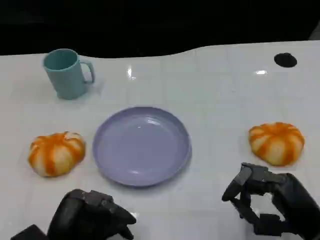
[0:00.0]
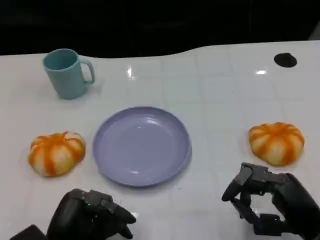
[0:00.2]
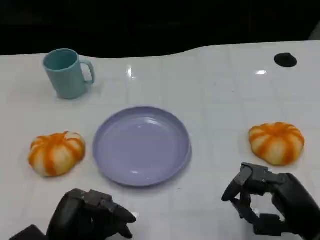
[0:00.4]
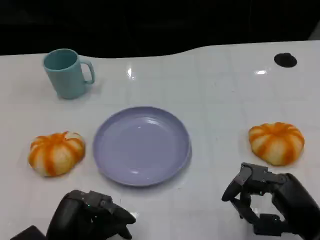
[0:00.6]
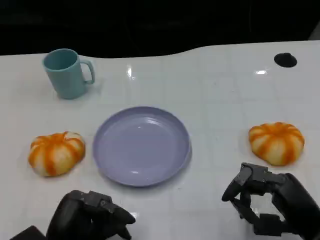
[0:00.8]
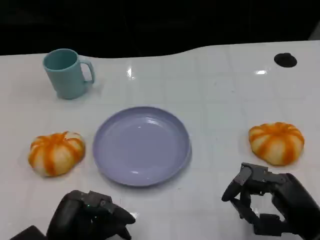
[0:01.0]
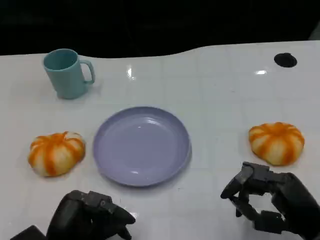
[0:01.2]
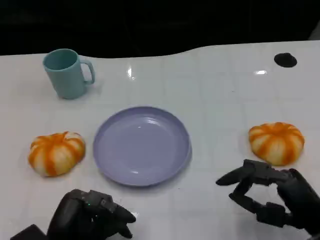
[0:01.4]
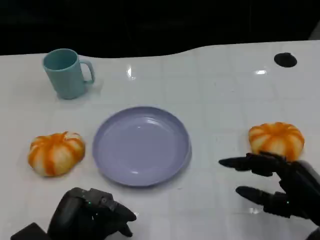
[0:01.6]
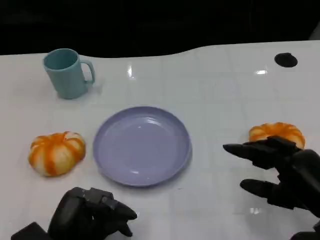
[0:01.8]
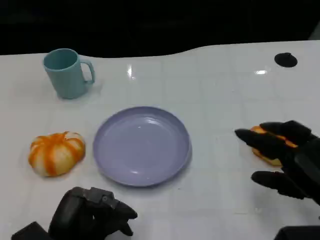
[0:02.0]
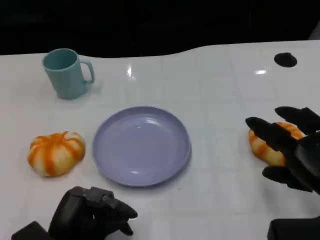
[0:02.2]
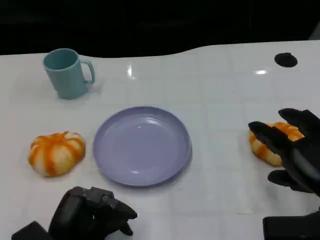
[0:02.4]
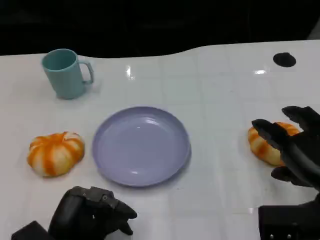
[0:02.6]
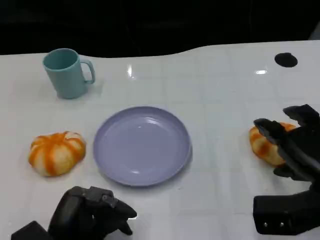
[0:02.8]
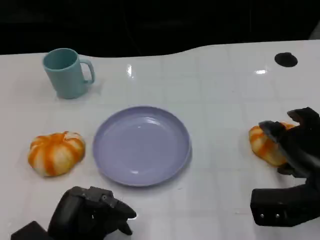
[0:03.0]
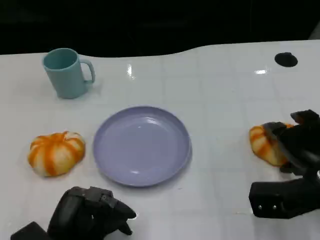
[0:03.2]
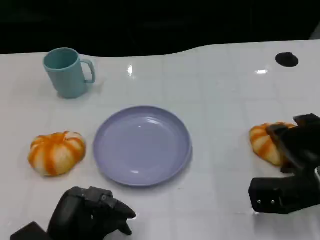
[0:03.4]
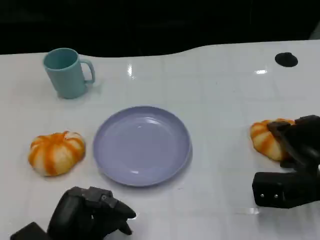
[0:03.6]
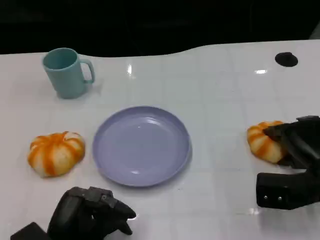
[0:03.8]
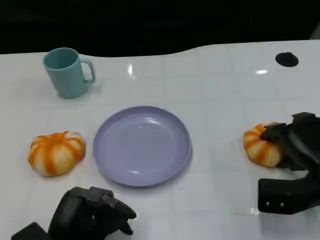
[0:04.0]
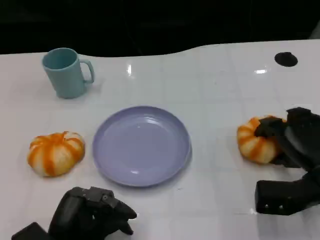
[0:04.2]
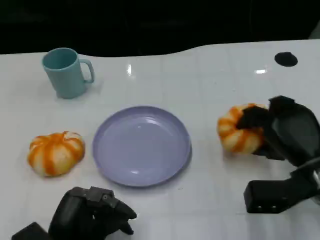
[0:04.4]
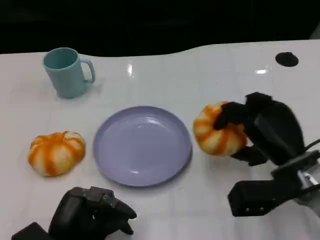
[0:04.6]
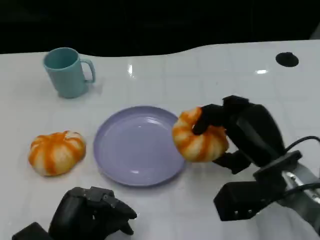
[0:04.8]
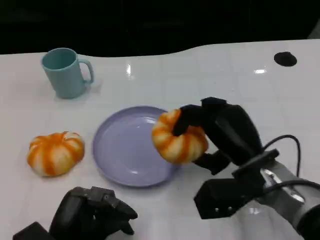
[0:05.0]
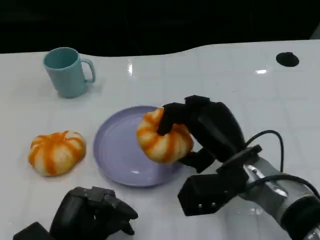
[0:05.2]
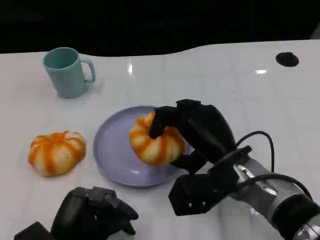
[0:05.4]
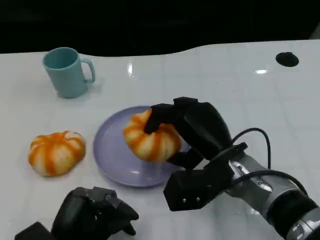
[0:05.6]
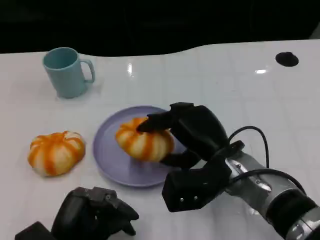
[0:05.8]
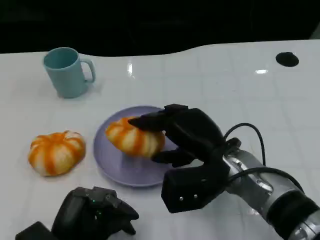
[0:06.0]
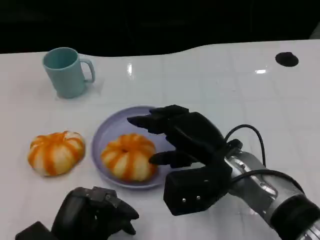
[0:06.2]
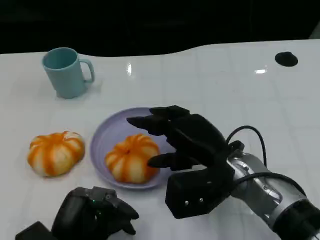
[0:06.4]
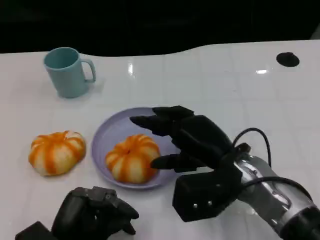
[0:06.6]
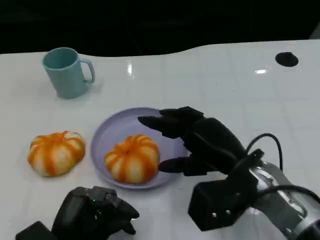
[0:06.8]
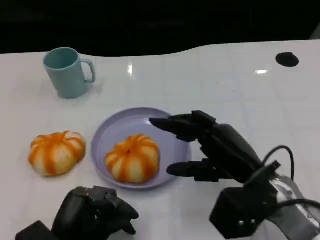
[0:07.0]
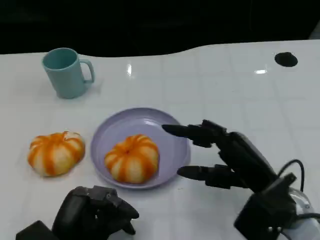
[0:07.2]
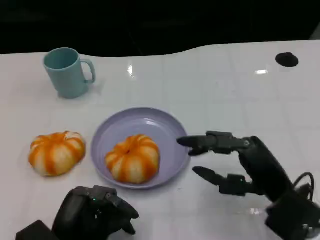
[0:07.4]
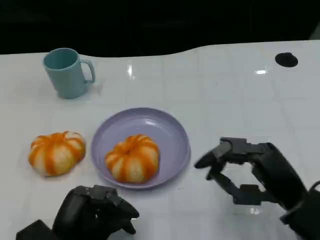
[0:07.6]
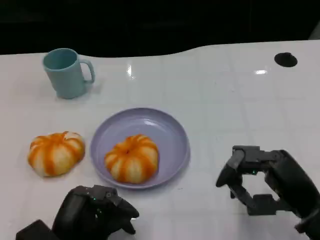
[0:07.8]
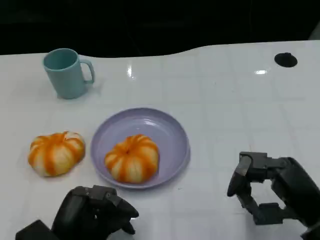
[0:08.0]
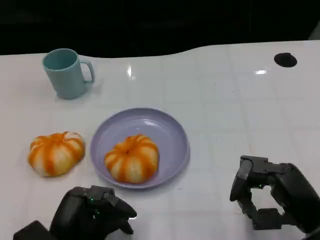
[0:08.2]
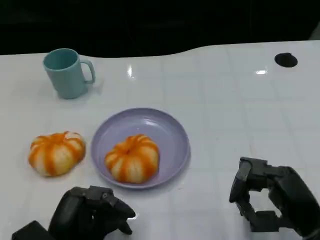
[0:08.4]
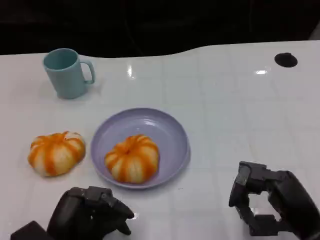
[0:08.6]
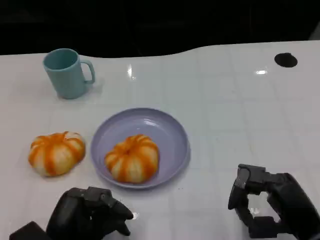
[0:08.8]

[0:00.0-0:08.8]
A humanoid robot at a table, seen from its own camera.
Task of the whole recording: Grasp the bread from the table and place it into the plate.
0.0 to 1.4 s: The hands stay close to where they were, moving slightly.
1.4 to 3.0 s: The right hand heads forward, covering about 5 cm.
4.4 to 5.8 s: The right hand shifts approximately 10 cm to the left.
5.8 to 7.4 s: The right hand heads to the right and backward, covering roughly 10 cm.
7.4 to 8.8 s: The right hand moves roughly 5 cm.

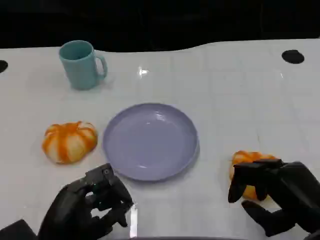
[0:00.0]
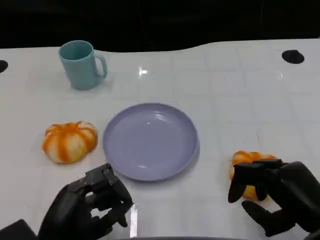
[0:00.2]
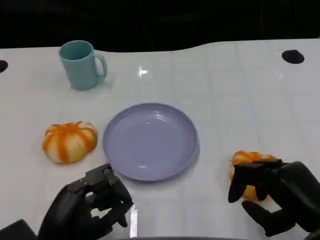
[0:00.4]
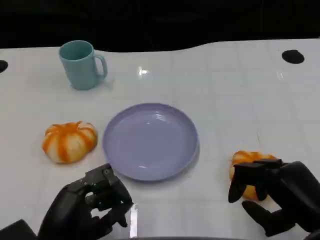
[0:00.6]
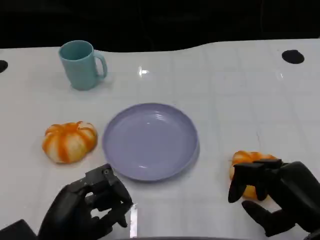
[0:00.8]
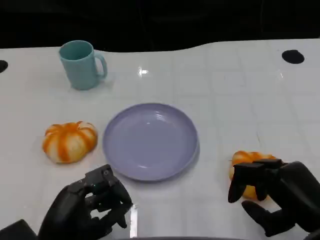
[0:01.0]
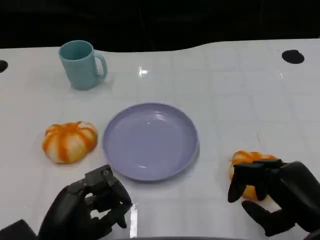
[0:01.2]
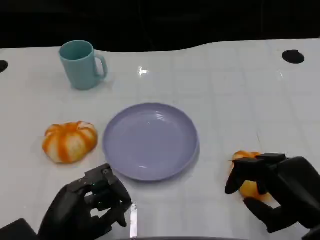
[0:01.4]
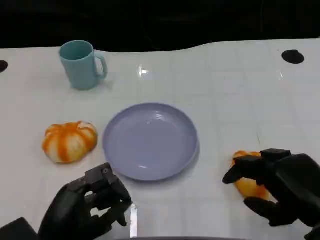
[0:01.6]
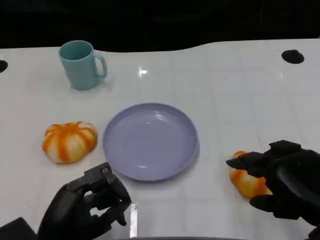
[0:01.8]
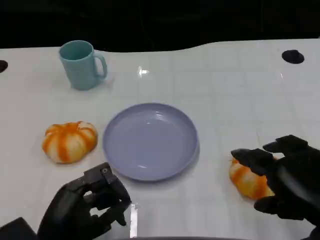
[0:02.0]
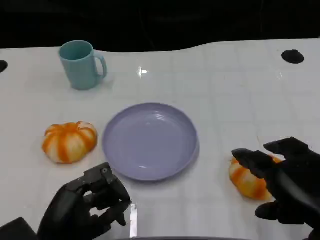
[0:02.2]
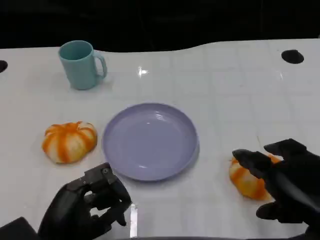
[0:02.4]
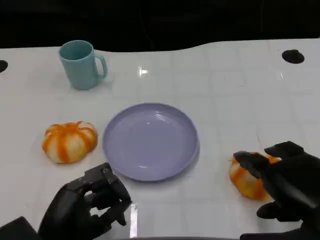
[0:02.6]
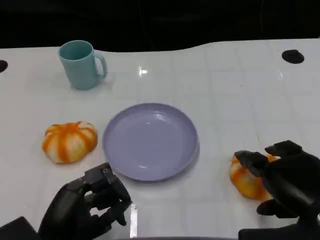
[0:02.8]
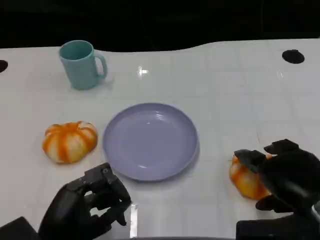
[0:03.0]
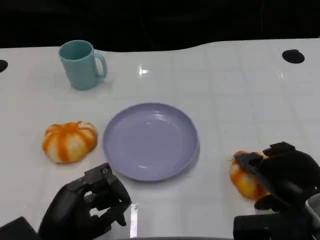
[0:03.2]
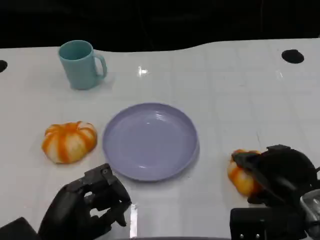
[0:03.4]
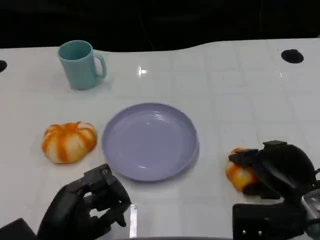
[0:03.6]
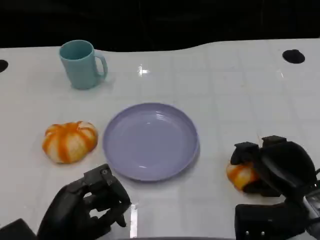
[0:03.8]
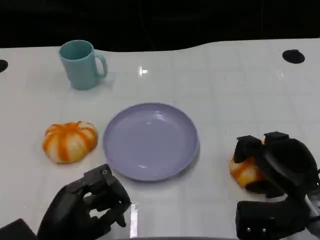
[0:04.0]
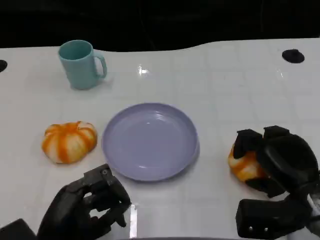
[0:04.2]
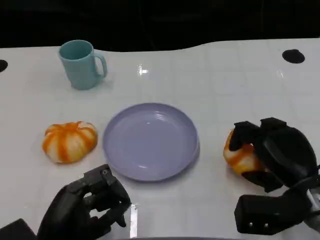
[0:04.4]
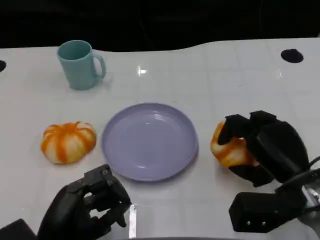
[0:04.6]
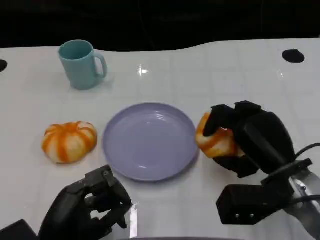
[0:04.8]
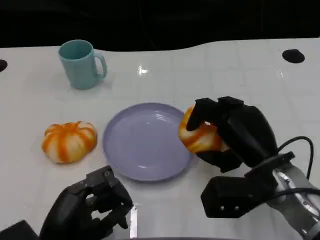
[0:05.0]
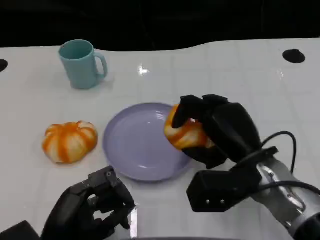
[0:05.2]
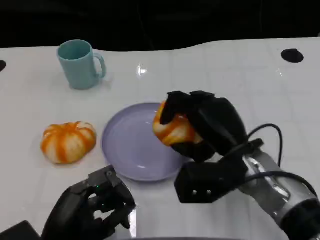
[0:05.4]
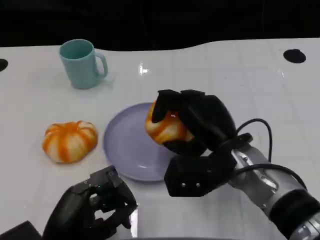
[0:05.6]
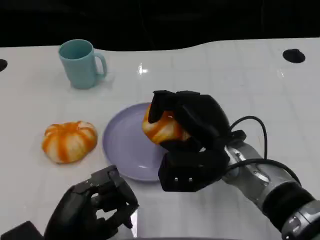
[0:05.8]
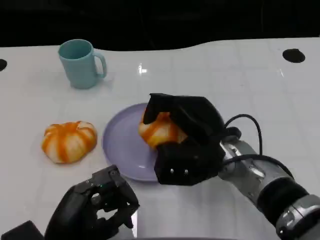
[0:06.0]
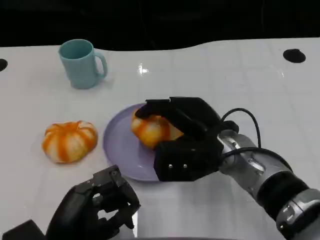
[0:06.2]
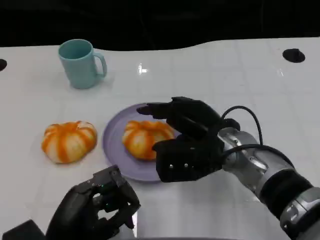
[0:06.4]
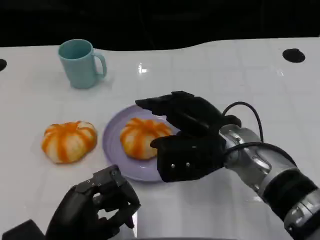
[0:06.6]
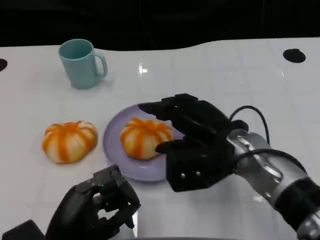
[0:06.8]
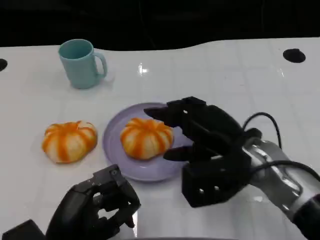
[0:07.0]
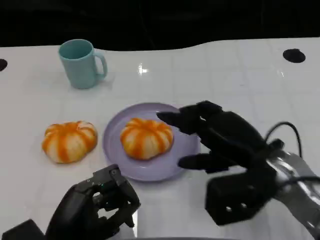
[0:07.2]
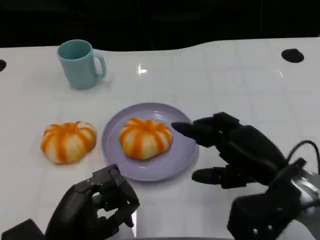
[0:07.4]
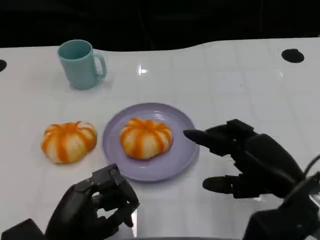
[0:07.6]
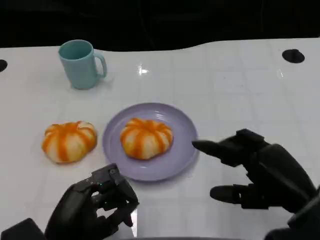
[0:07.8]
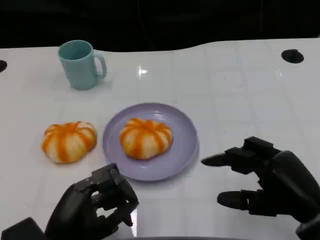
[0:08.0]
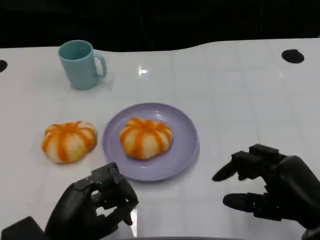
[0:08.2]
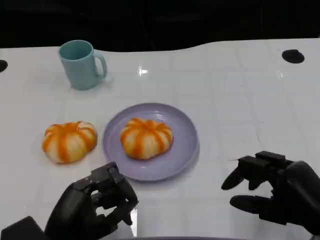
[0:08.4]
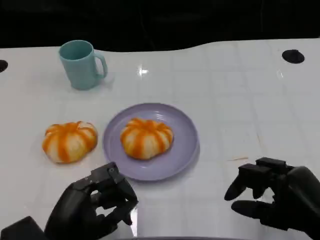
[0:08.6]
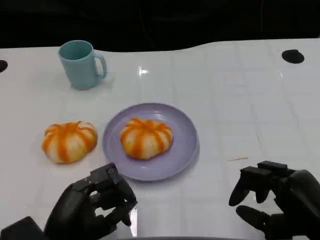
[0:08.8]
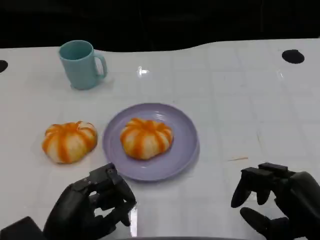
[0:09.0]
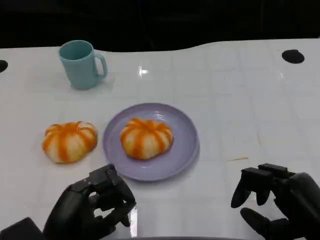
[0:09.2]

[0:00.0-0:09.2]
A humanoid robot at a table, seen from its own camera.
Task of the whole recording: Grasp the bread from the table and place it into the plate.
0.0 to 1.6 s: The hands stay close to where they were, moving slightly.
3.0 to 4.6 s: The right hand ends up about 5 cm from where it was.
4.6 to 6.2 s: The right hand is displaced to the left by some 10 cm.
6.2 to 7.6 s: The right hand travels to the right and backward by some 15 cm.
7.6 to 9.2 s: The right hand goes approximately 5 cm backward.

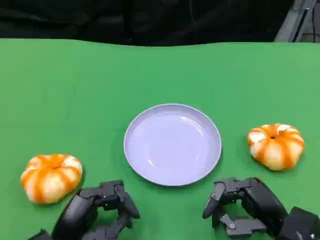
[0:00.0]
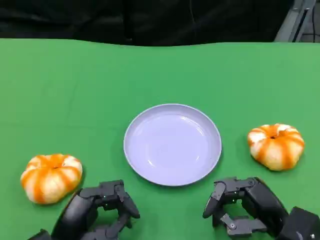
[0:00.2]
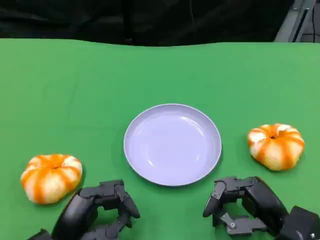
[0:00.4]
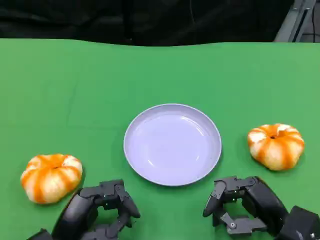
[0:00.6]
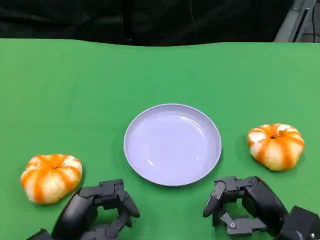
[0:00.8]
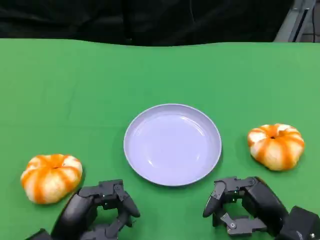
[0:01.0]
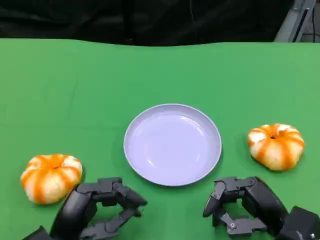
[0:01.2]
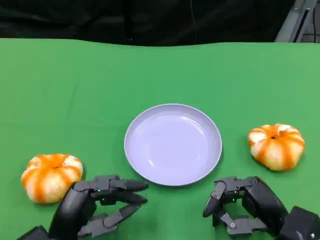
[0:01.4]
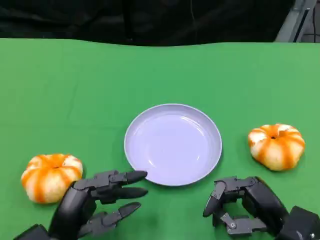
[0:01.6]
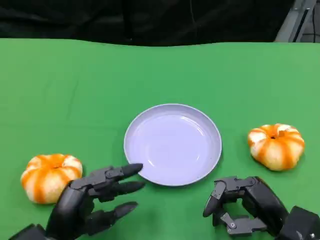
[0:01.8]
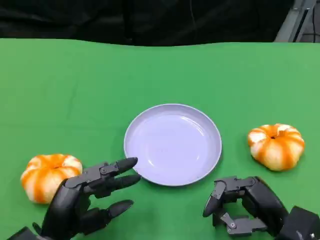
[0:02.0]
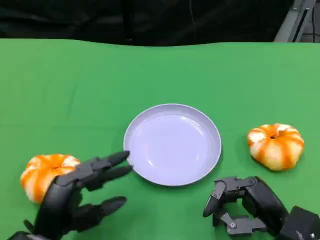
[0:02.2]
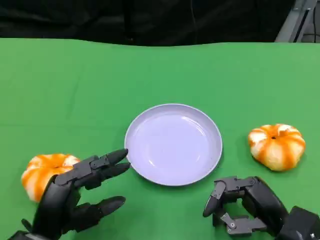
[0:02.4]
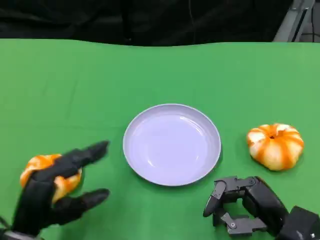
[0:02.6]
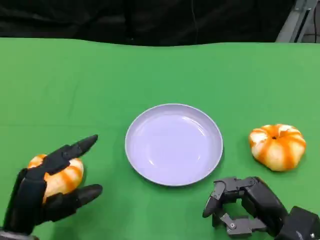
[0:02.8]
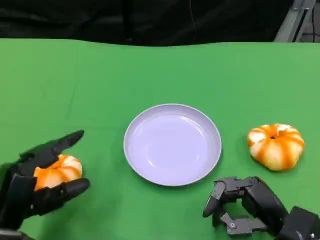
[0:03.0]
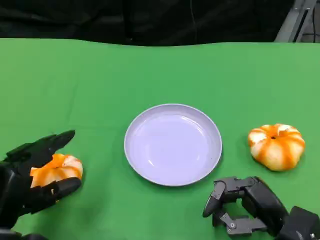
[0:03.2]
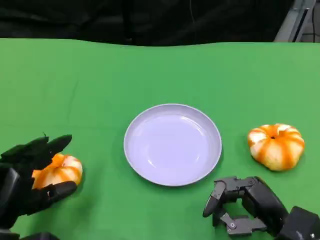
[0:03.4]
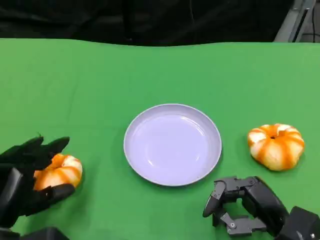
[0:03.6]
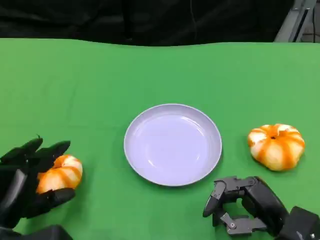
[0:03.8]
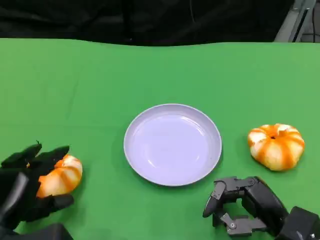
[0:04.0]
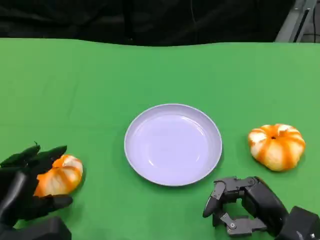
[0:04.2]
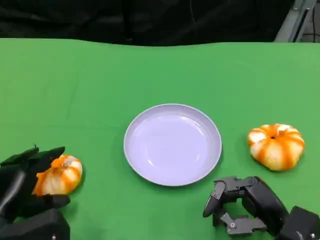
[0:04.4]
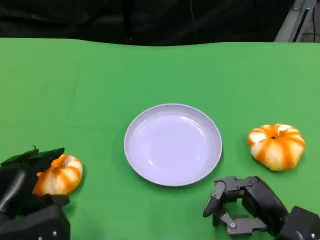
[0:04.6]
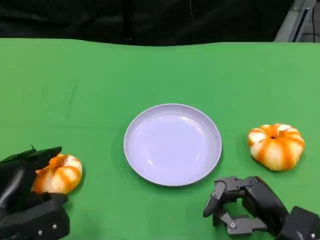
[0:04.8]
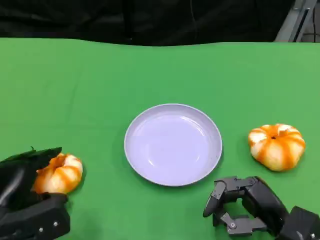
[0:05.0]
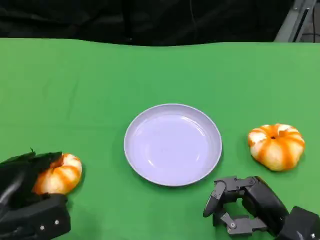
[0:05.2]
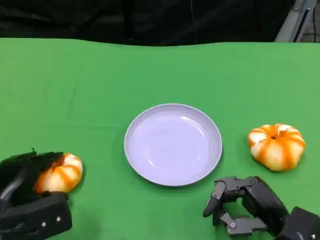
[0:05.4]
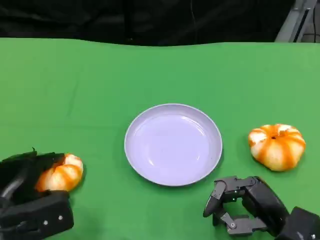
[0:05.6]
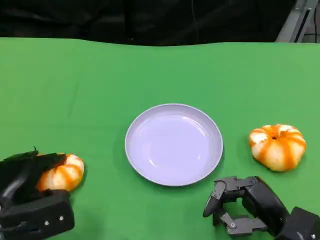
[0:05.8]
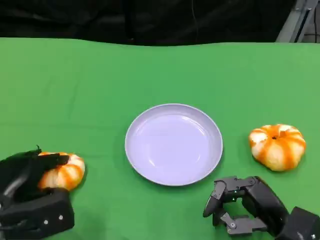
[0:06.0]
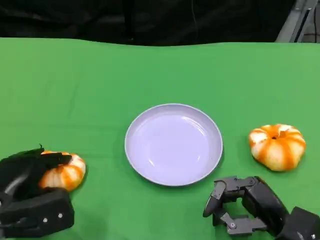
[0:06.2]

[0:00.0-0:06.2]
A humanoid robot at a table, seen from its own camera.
Task of the whole recording: Grasp the bread from the table and place it into the plate.
0.0 to 1.6 s: The hands stay close to where they were, moving slightly.
1.6 to 3.2 s: The left hand travels to the left by roughly 5 cm.
4.6 to 6.2 s: The hands move only a little.
